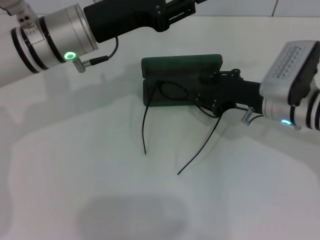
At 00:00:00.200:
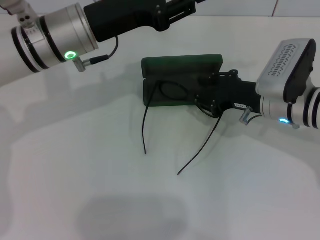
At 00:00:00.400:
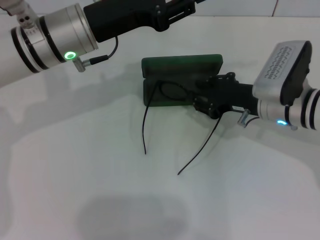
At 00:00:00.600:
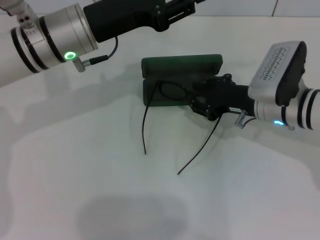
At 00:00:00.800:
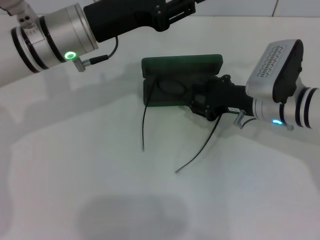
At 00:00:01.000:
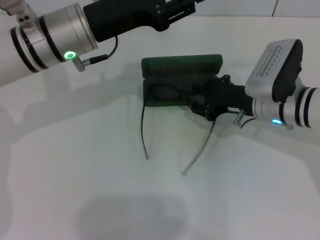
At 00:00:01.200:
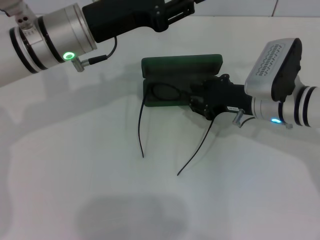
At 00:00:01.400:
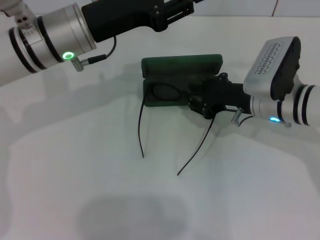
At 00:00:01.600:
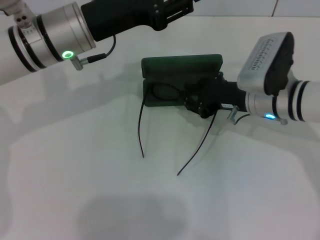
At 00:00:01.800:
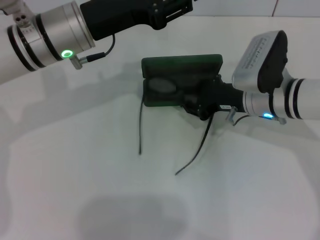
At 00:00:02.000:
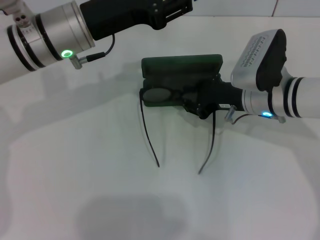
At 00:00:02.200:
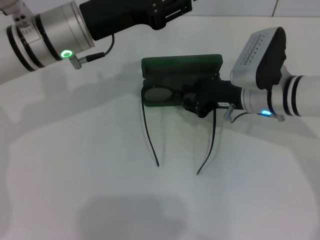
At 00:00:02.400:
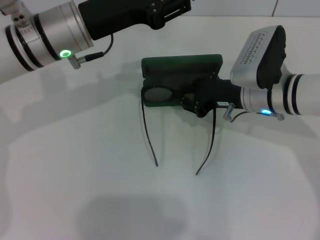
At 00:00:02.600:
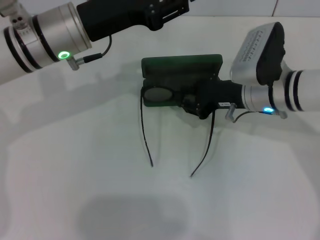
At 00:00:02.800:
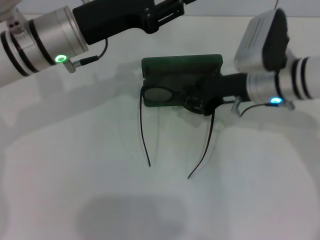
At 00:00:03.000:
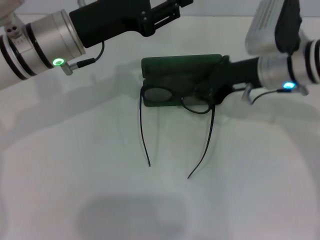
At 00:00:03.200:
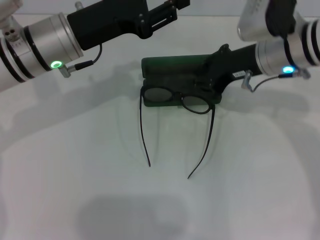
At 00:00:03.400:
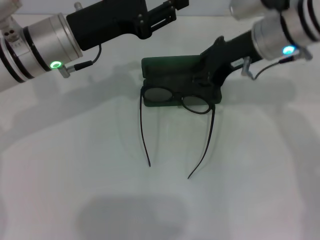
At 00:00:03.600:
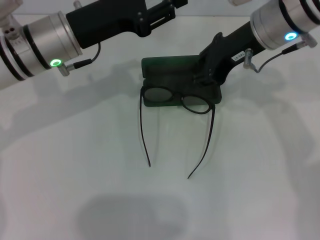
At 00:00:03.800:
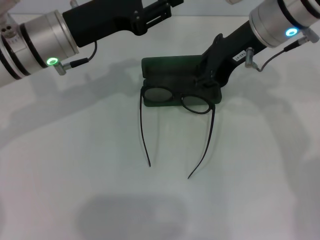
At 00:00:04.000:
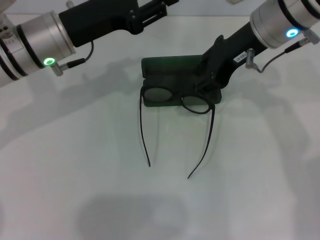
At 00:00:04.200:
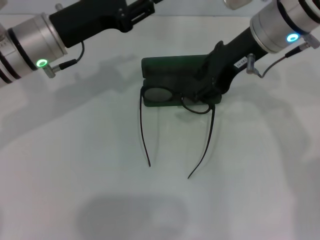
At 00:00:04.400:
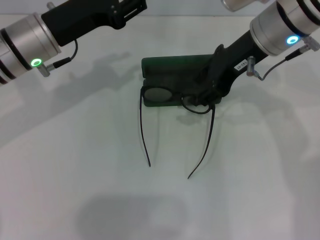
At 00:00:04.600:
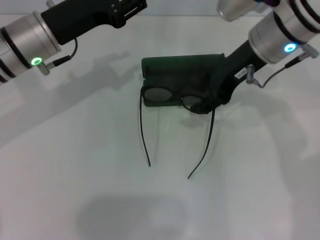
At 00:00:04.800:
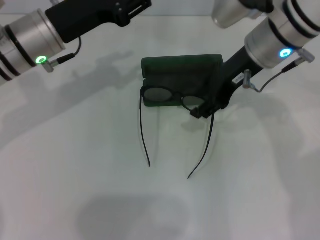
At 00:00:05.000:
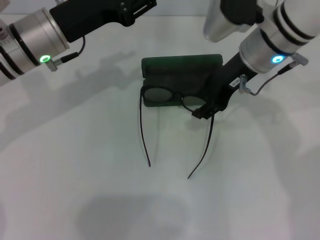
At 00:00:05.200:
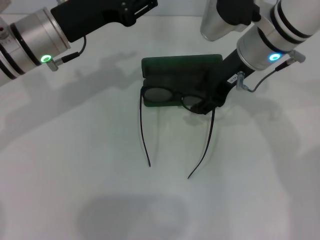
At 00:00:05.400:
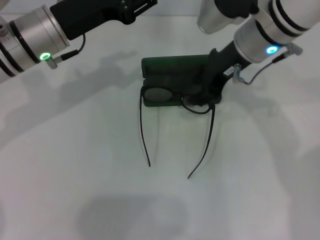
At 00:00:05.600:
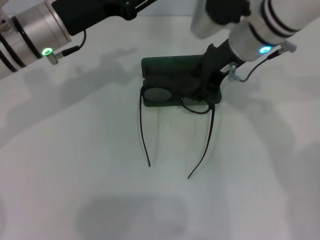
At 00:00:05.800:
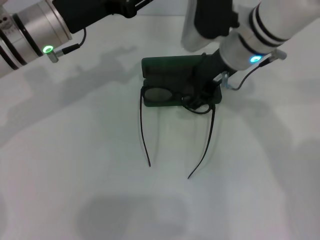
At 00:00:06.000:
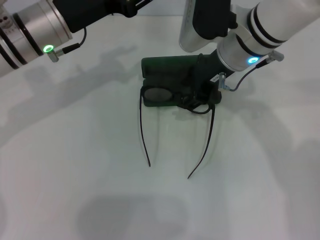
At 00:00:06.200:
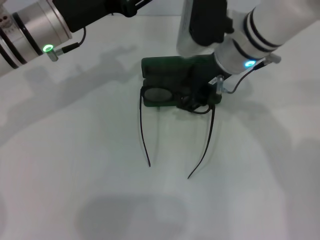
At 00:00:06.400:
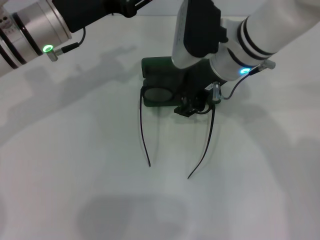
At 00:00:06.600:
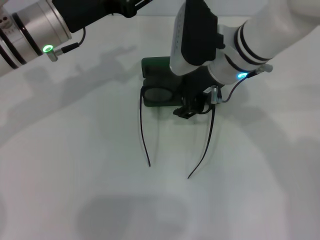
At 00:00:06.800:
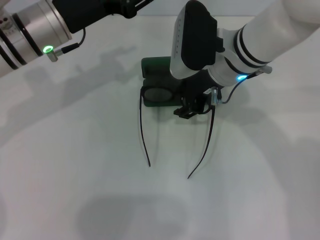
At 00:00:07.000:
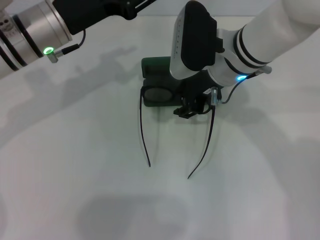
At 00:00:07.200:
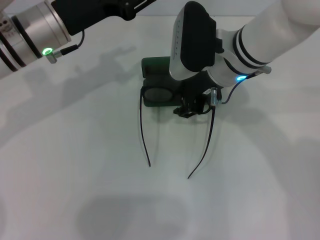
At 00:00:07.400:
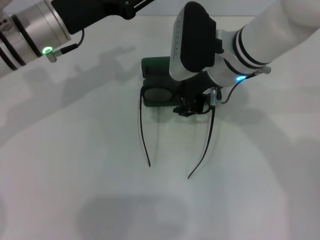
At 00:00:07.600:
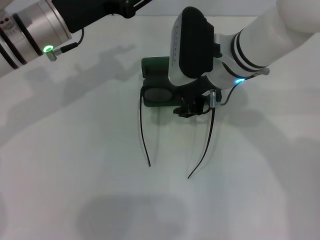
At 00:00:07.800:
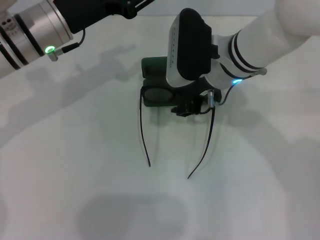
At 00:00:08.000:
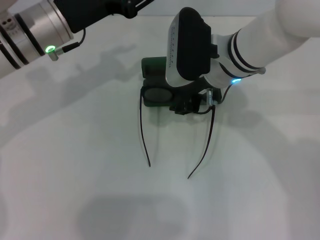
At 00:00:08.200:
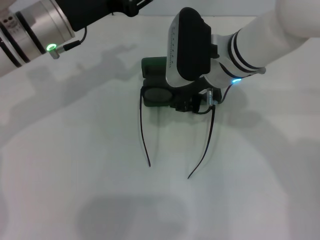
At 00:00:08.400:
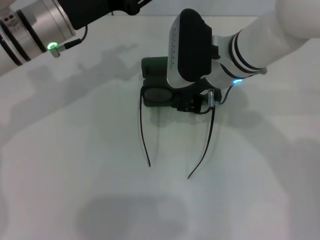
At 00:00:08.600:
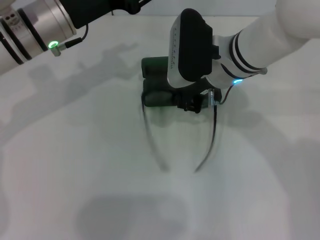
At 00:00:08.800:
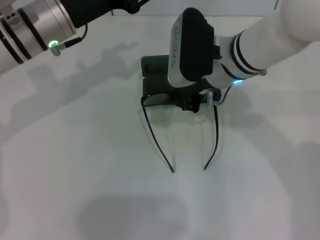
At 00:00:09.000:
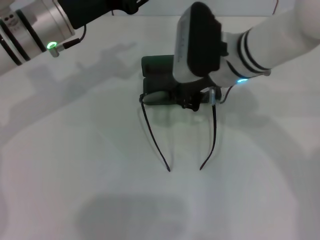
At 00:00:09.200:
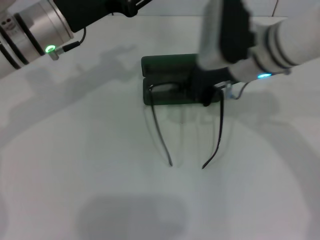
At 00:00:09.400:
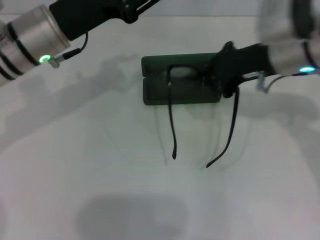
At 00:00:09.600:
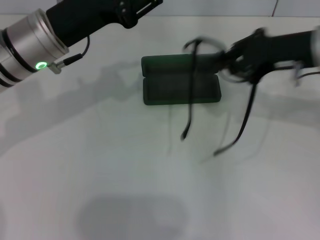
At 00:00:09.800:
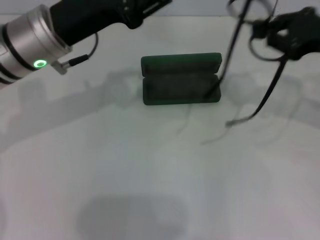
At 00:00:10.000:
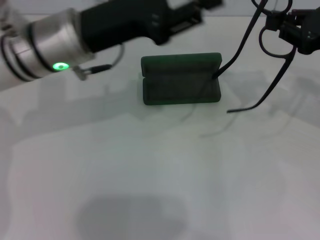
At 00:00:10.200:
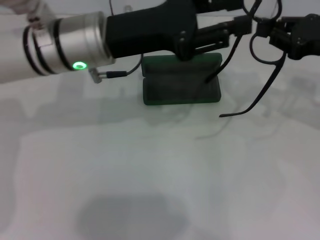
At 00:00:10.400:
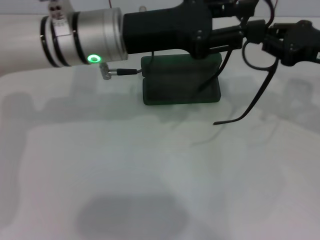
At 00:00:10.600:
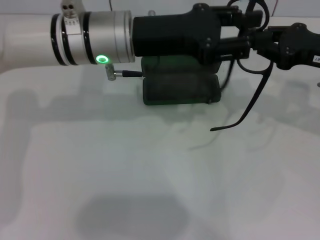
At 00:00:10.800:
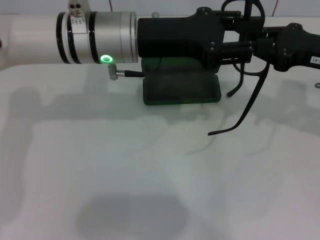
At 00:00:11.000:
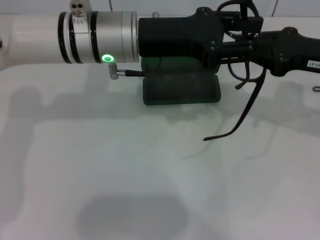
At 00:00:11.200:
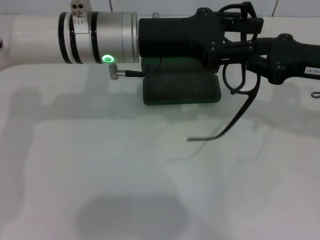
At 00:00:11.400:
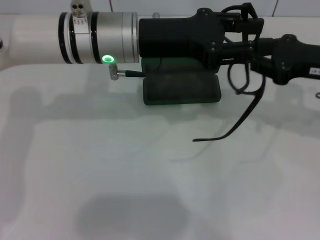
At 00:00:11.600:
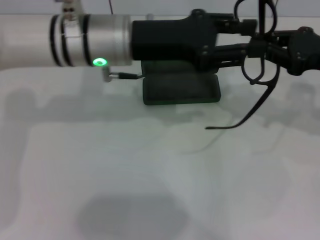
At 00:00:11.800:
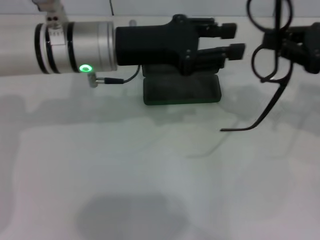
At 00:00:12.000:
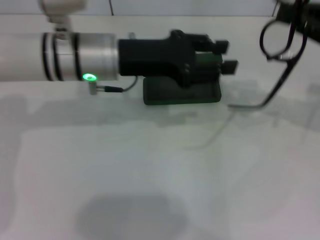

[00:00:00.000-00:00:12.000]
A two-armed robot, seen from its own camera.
Step, 00:00:00.000 to 00:00:08.600: Grab the eyeglass frame with your right hand.
00:00:00.000 to 00:00:01.600: The grippers make only small movements.
00:00:01.600 to 00:00:03.000: The right gripper shifts approximately 5 cm upward.
00:00:03.000 to 00:00:04.400: The right gripper heads upward, covering some 10 cm.
00:00:04.400 to 00:00:06.000: The right gripper shifts by approximately 5 cm.
00:00:06.000 to 00:00:07.600: The grippers move only a little.
00:00:07.600 to 00:00:09.000: The right gripper closes its fingers.
00:00:09.000 to 00:00:10.400: The right gripper travels to the right by roughly 20 cm. The left gripper goes approximately 5 cm to the right.

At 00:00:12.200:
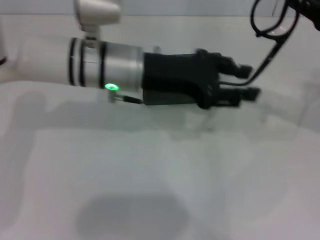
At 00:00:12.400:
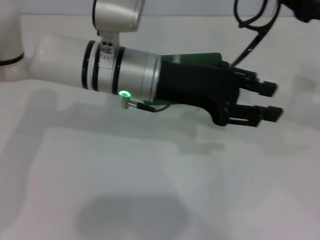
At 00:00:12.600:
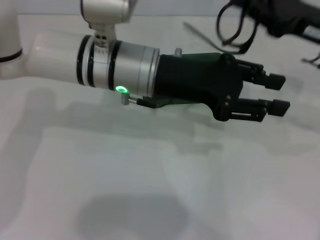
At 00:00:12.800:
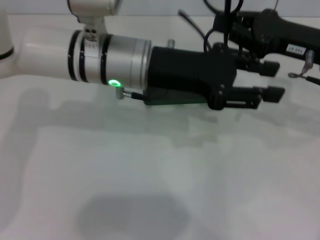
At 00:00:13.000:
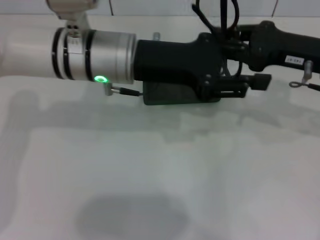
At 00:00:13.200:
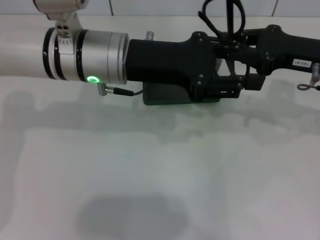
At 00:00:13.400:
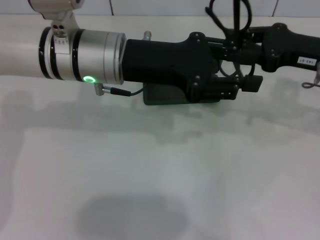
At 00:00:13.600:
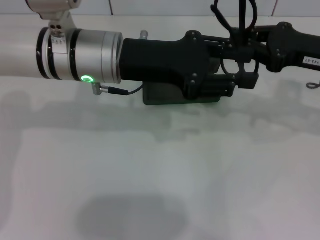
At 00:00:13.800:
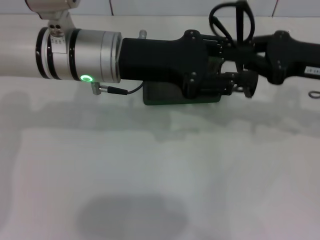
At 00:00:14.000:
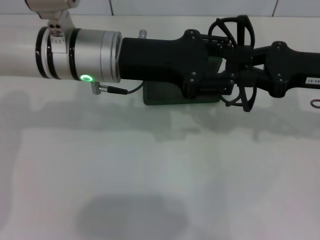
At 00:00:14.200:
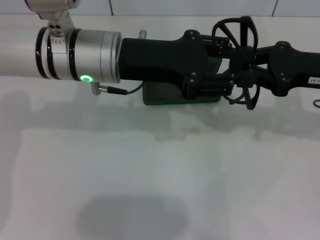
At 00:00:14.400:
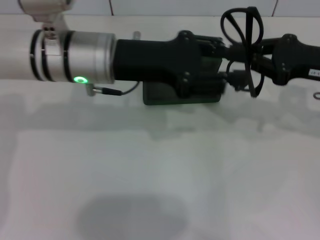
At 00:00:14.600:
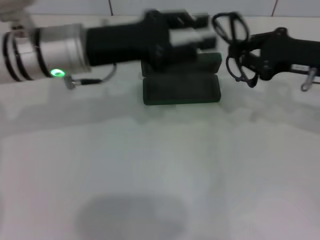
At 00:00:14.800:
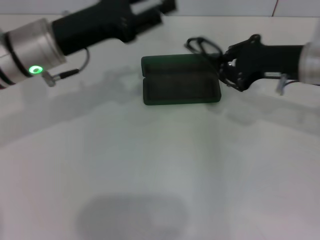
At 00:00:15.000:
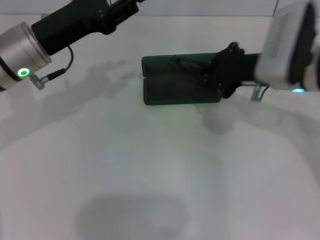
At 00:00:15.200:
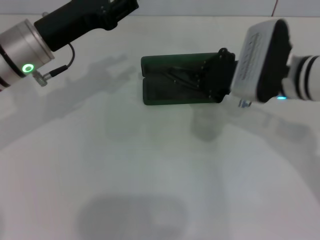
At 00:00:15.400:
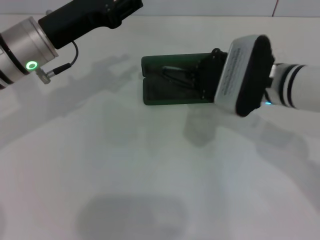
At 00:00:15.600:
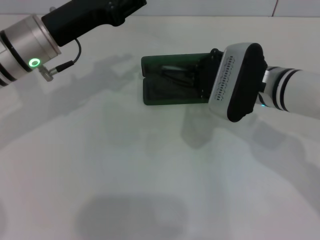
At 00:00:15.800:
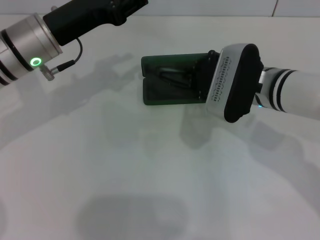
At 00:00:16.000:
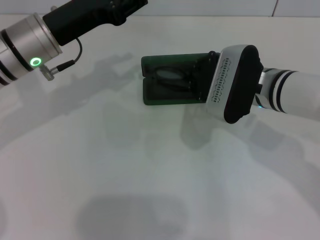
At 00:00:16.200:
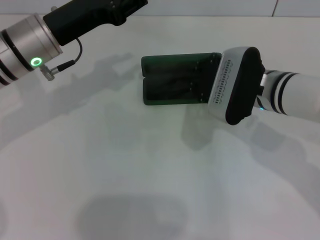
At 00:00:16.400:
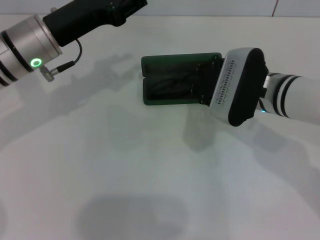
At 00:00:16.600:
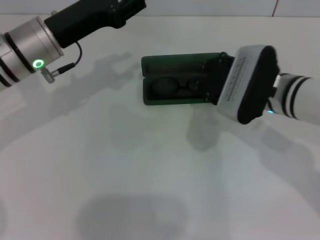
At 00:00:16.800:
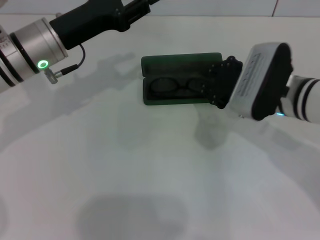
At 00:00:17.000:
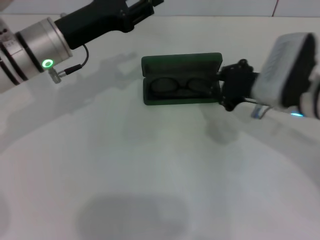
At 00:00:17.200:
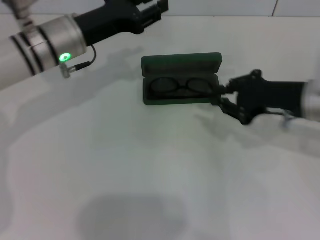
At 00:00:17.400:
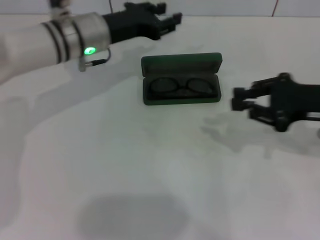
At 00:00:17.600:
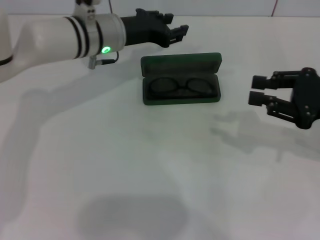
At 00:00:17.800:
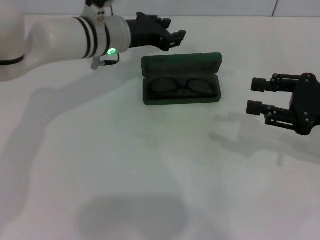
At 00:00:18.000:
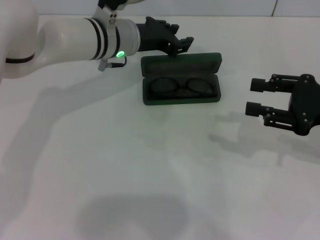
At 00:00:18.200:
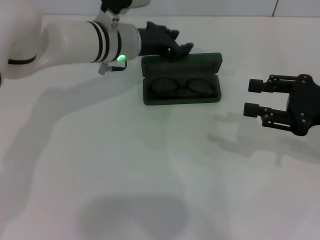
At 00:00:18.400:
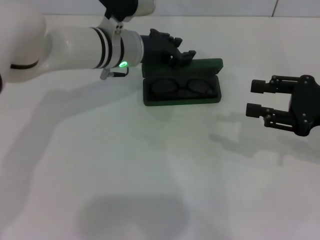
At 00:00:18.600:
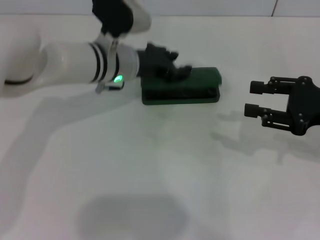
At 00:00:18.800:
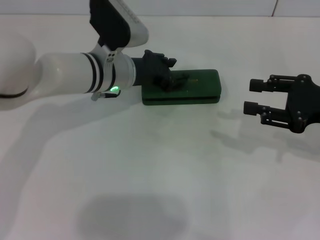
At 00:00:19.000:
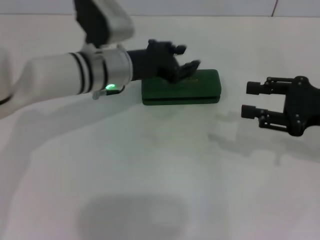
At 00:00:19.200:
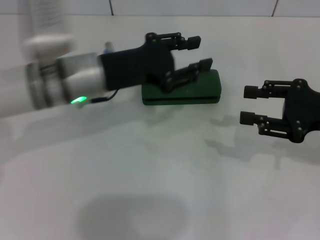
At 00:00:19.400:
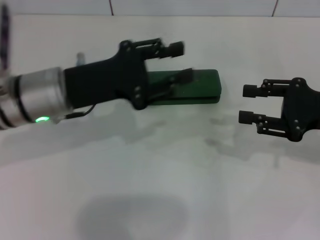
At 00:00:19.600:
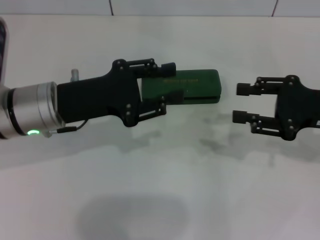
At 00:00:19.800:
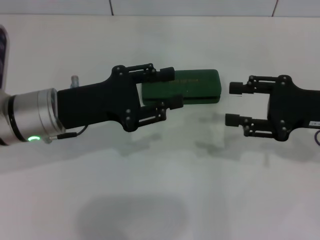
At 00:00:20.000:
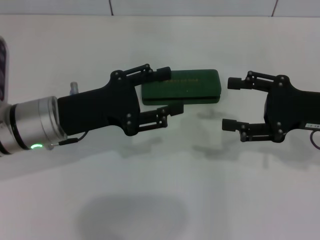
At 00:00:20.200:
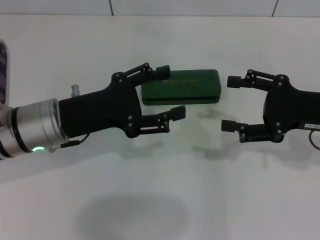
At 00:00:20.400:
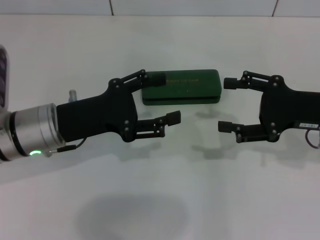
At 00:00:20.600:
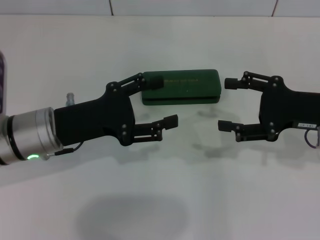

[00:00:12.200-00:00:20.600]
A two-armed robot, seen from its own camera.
Step, 00:00:13.000 to 00:00:16.400: Put the glasses into the case with your right hand.
Step, 00:00:16.600 to 00:00:18.600: Close the glasses case with your left hand.
00:00:13.600 to 00:00:15.000: Both grippers move to the left, about 10 cm.
00:00:15.000 to 00:00:16.400: The right gripper ends up about 5 cm from where it was.
00:00:16.400 to 00:00:17.800: The left gripper heads to the right and forward, covering some 10 cm; the right gripper shifts some 15 cm to the right.
00:00:17.800 to 00:00:19.200: The right gripper opens. The left gripper goes roughly 10 cm backward.
00:00:19.200 to 00:00:20.600: The left gripper travels backward and to the left by roughly 10 cm, and opens. Meanwhile the right gripper opens up.
